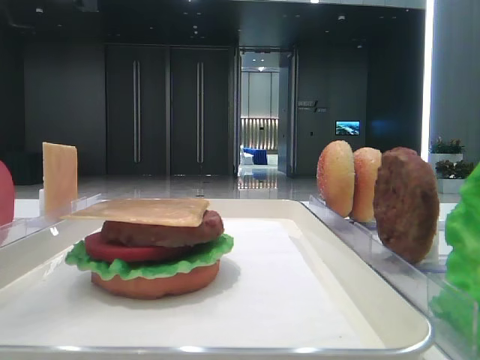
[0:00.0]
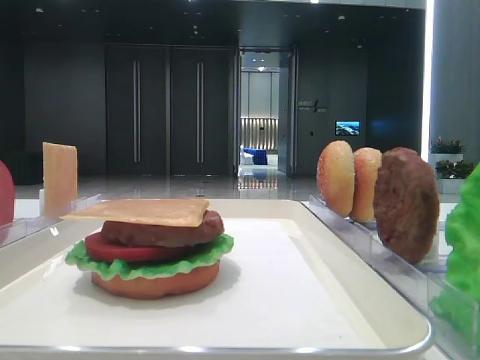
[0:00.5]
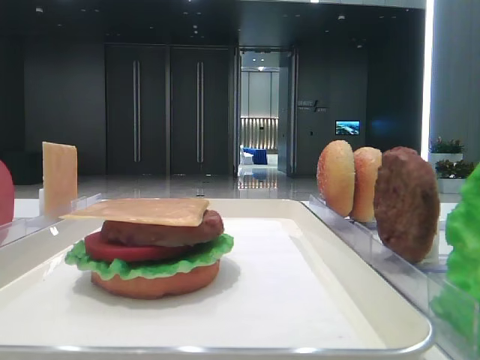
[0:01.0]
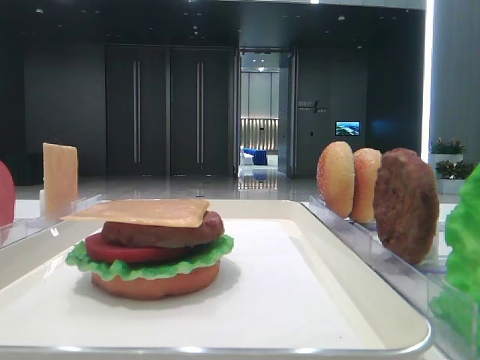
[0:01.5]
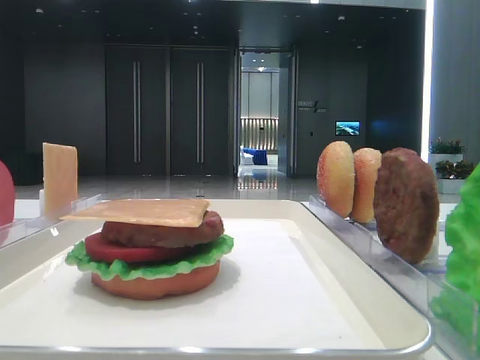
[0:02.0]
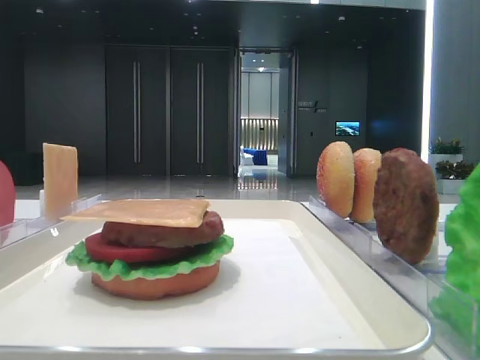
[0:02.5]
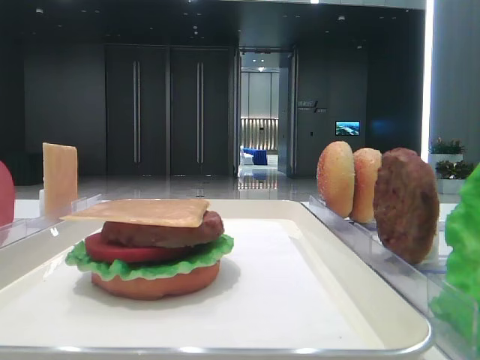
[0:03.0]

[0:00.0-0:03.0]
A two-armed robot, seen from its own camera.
0:00.0 to 0:01.5: The left gripper travels backward and to the left by approximately 25 cm.

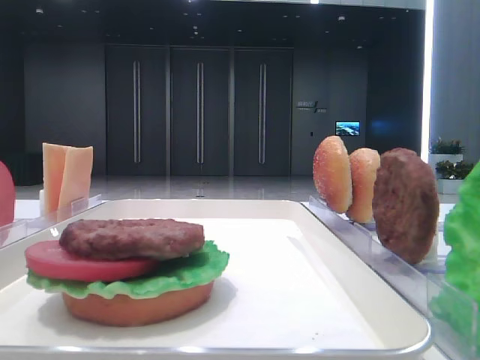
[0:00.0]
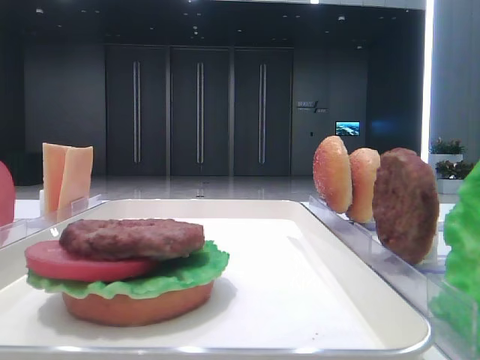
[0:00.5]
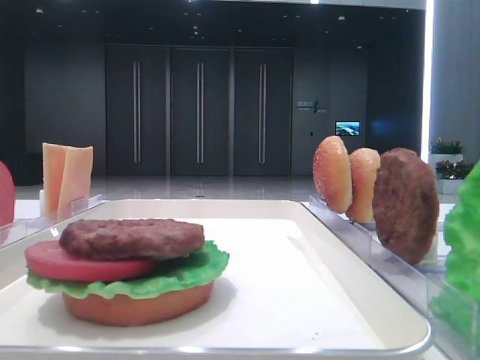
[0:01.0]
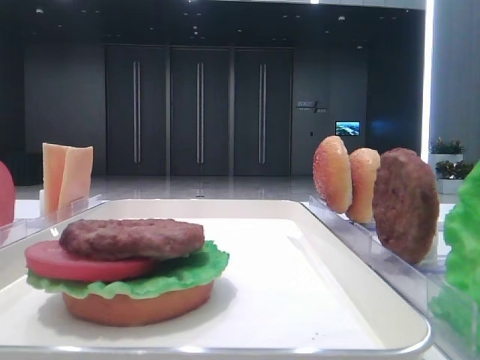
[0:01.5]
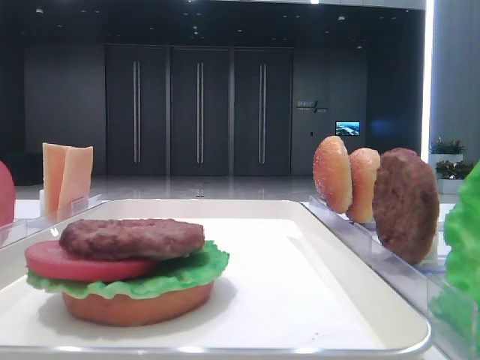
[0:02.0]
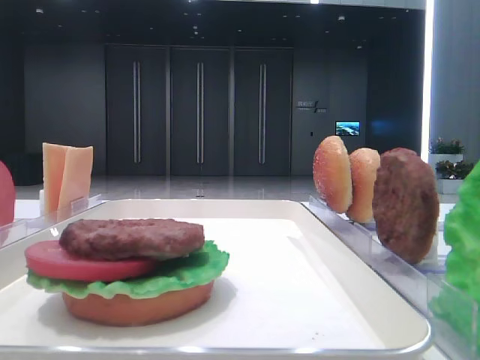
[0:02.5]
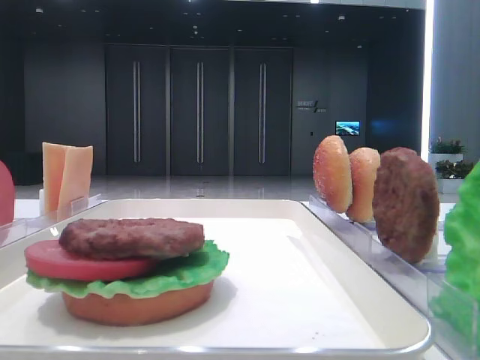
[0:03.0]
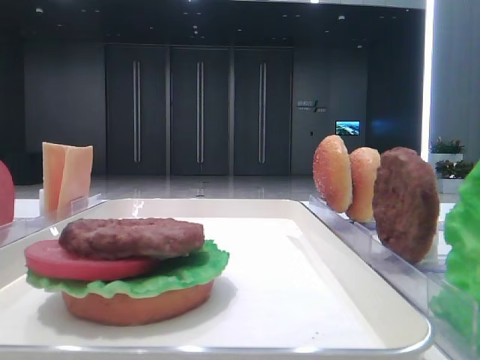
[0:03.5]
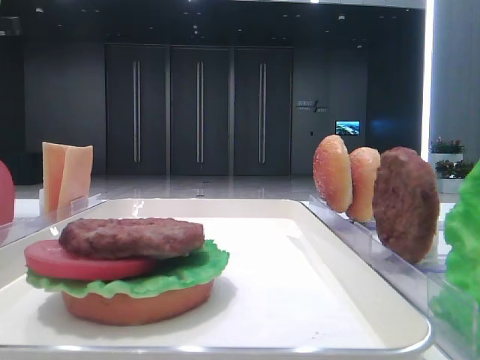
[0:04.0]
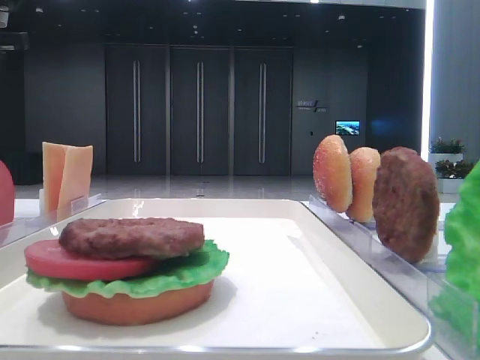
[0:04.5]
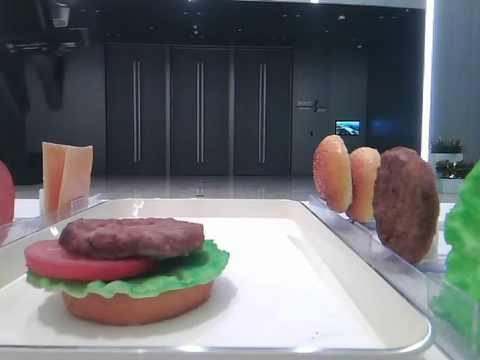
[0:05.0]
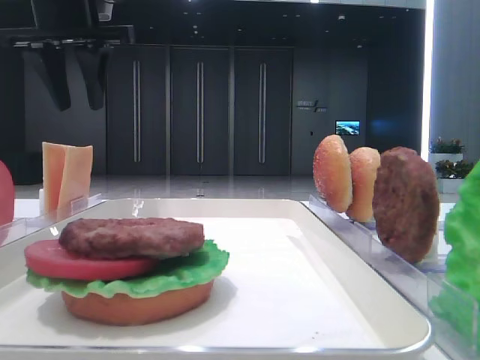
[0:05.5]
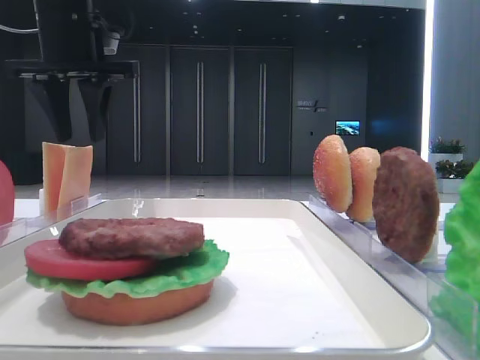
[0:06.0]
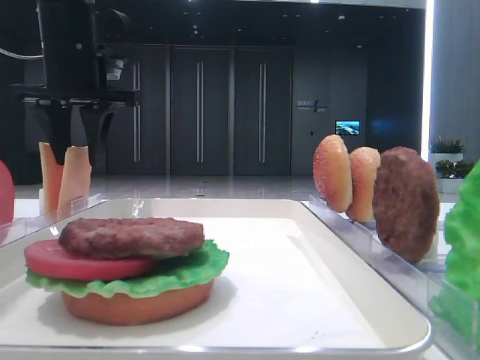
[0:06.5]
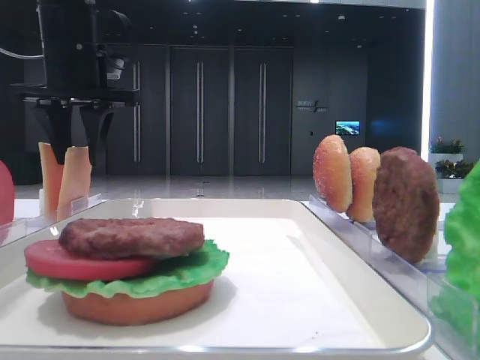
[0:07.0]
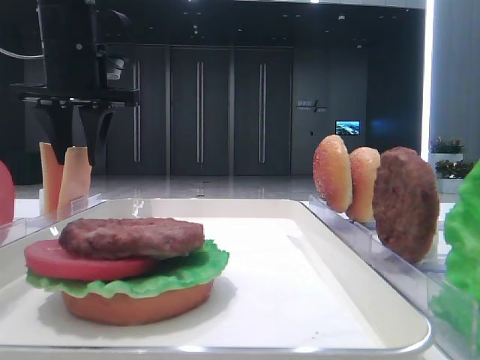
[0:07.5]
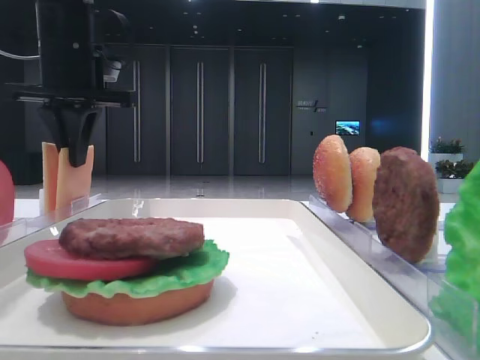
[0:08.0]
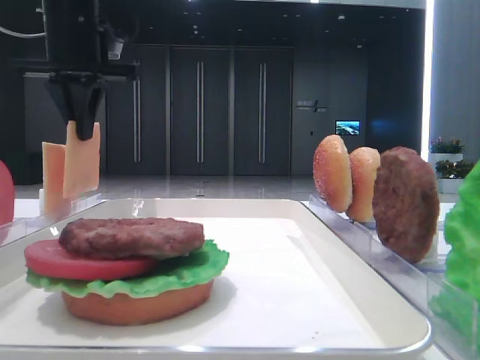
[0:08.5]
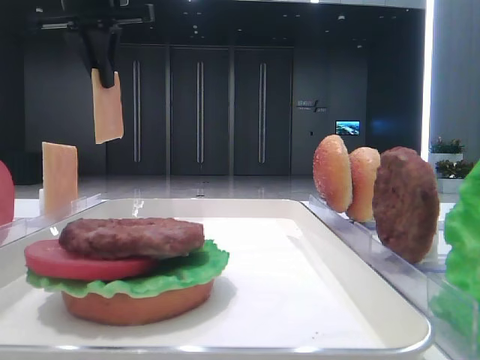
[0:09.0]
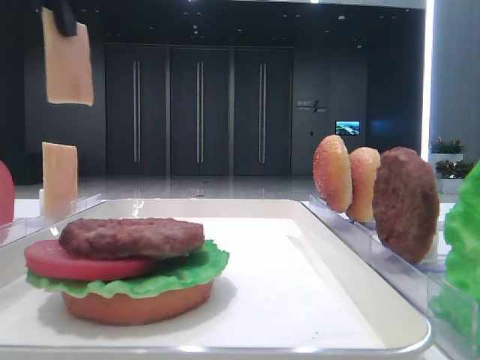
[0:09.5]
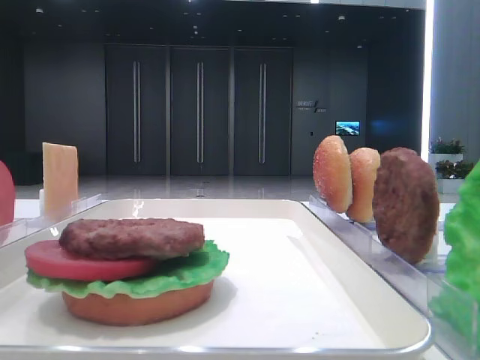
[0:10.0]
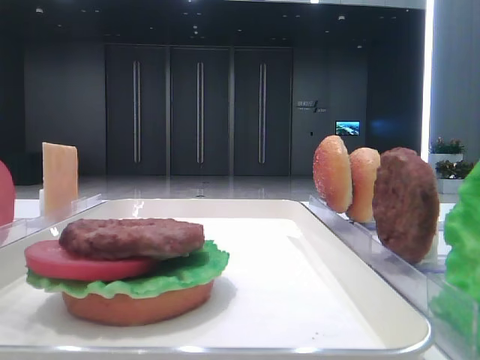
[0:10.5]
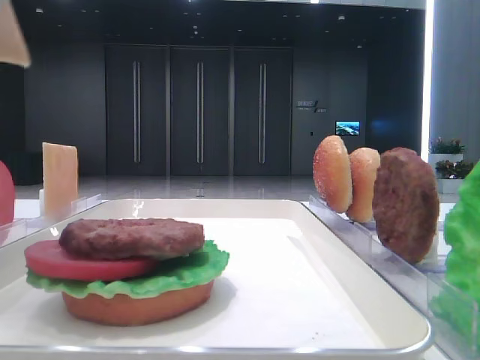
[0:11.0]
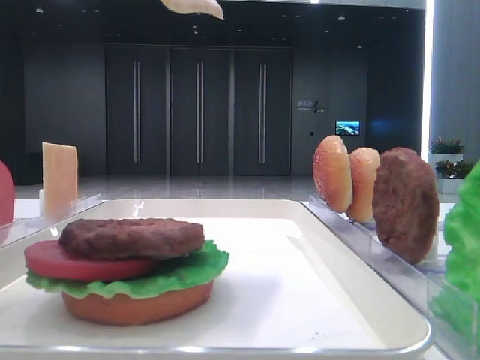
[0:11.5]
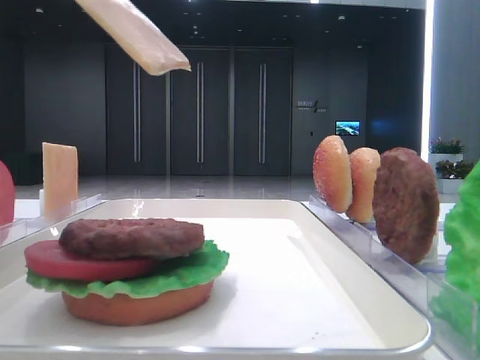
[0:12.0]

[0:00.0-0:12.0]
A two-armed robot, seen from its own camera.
Step, 0:00.0 to 0:07.5: Pick up the cheese slice with the left hand.
0:02.0 to 0:04.0: The left gripper travels forward by some 40 cm.
0:04.0 to 0:06.0: The left gripper travels to the right by approximately 15 cm.
0:06.0 to 0:08.0: The left gripper closes its fingers.
0:08.0 to 0:10.0: The left gripper moves backward and upward, roughly 25 cm.
0:10.0 to 0:12.0: The left gripper travels downward by roughly 10 cm.

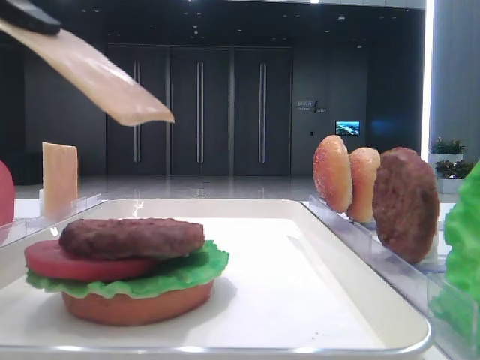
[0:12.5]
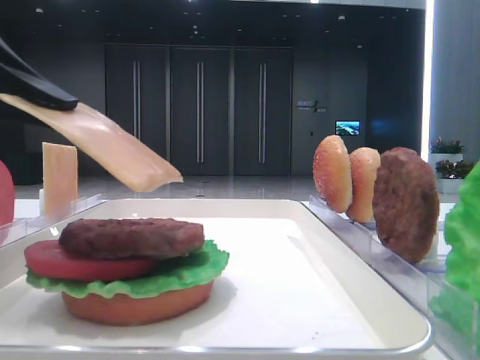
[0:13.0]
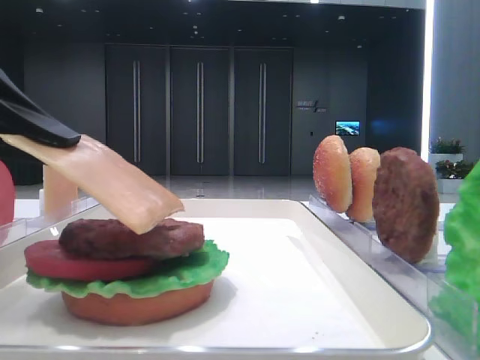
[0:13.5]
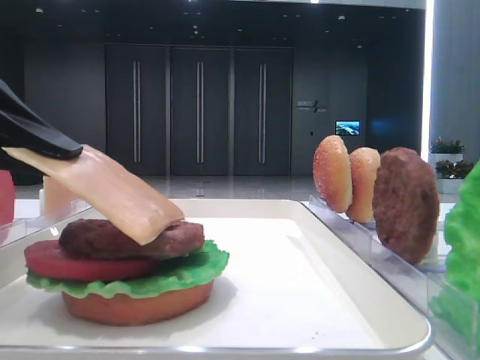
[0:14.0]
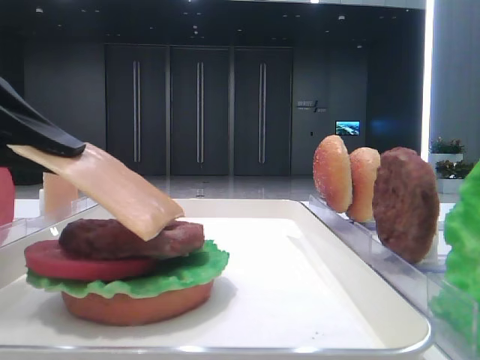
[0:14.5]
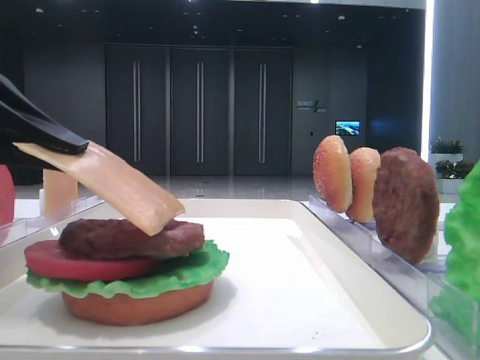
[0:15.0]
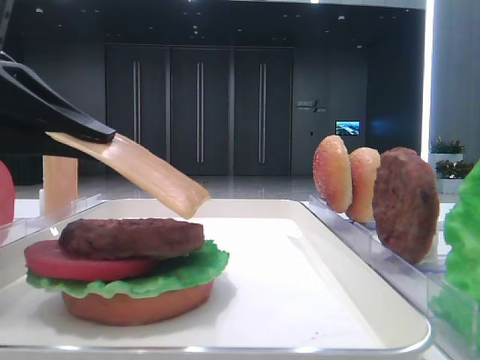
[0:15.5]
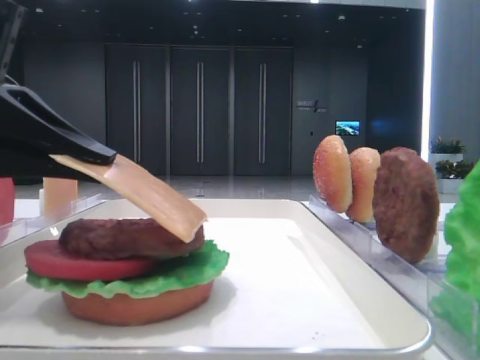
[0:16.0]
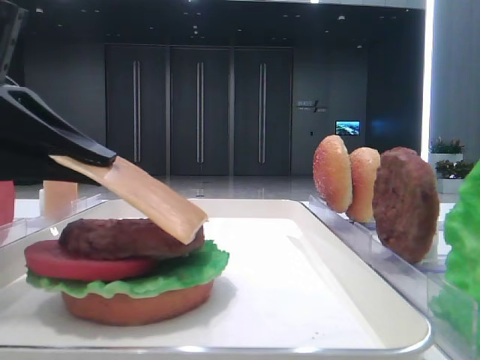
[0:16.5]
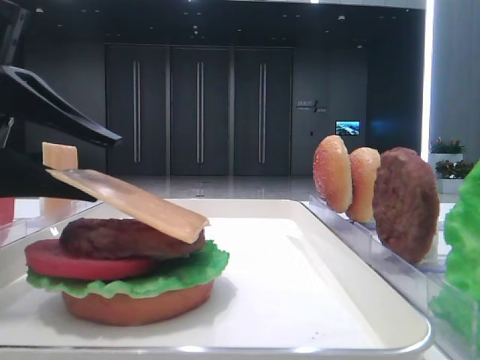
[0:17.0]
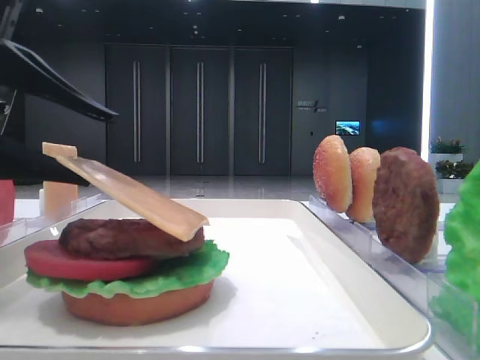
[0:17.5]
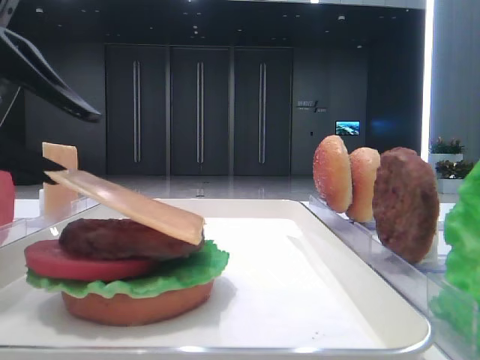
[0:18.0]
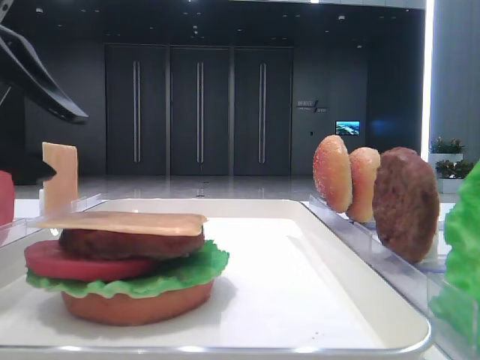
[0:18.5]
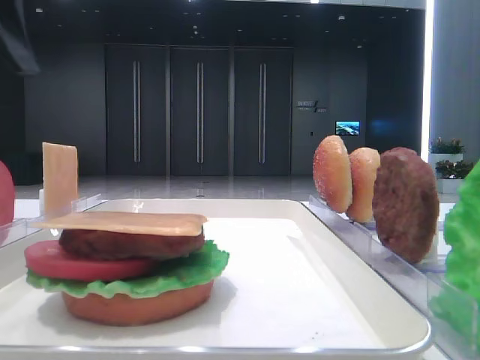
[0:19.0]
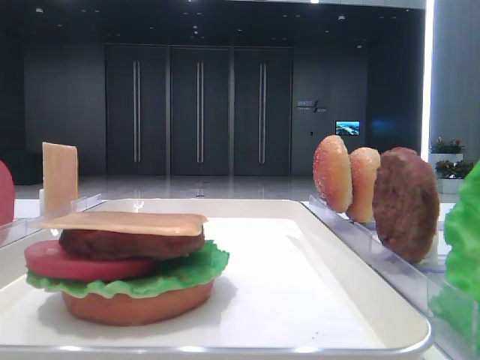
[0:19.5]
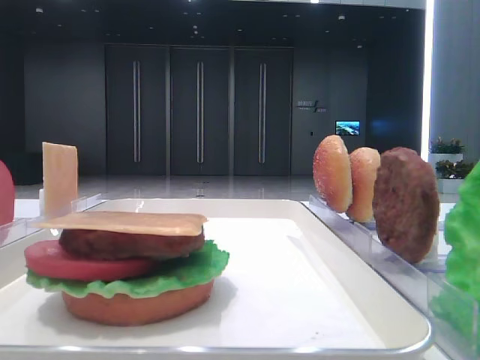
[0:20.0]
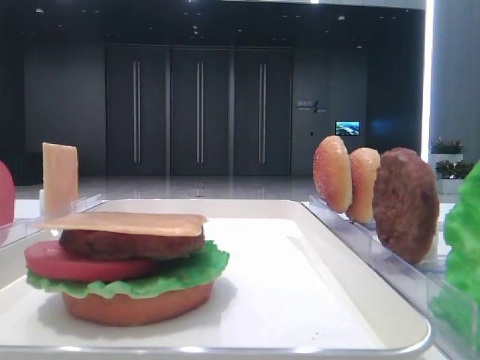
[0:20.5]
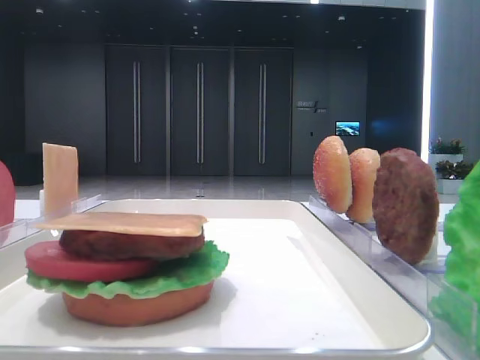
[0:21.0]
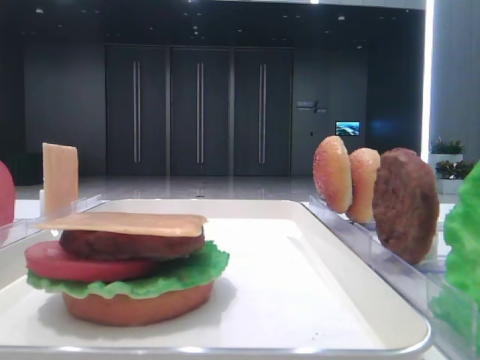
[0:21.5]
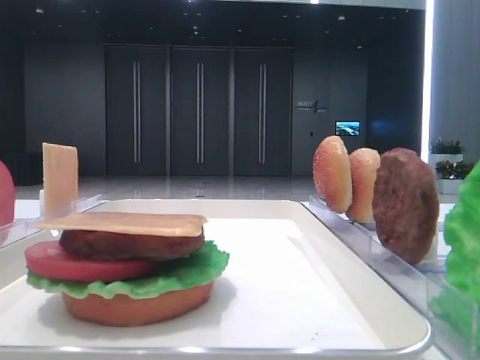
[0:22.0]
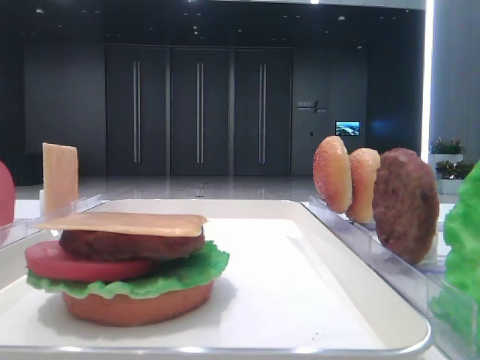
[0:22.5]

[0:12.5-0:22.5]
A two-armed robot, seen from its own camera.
Step, 0:12.5 to 0:18.0: Place the cheese slice on the patty with the left hand.
0:12.5 to 0:14.5: The left gripper travels downward by about 5 cm.
0:14.5 to 0:16.5: The grippers stay close to where they were, moving slightly.
0:16.5 to 0:18.5: The left gripper opens up.
0:18.5 to 0:20.5: The left gripper heads upward, backward and to the left, covering some 25 cm.
